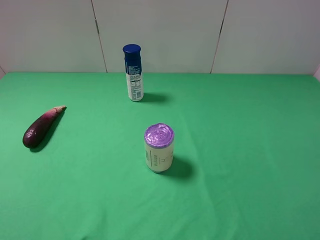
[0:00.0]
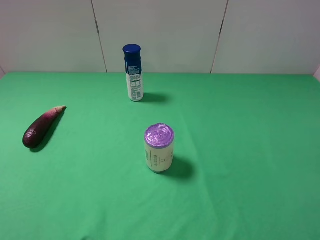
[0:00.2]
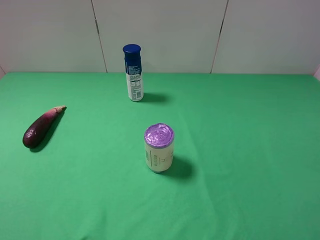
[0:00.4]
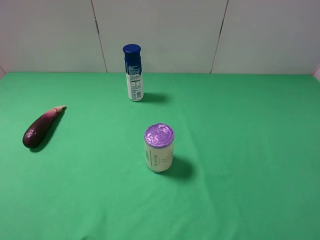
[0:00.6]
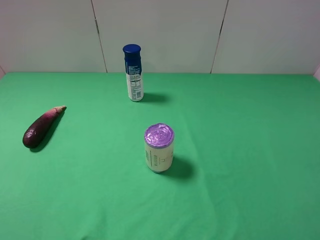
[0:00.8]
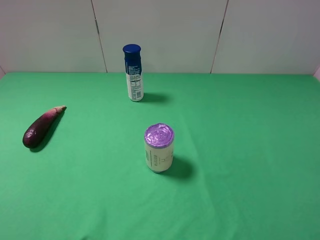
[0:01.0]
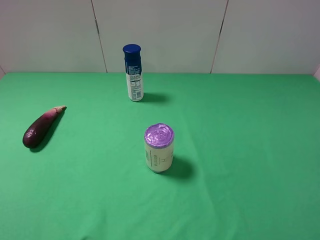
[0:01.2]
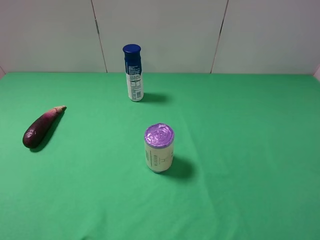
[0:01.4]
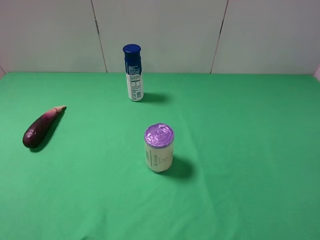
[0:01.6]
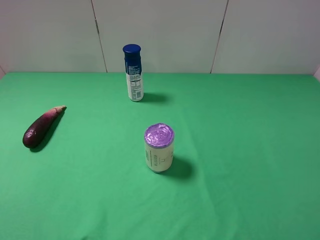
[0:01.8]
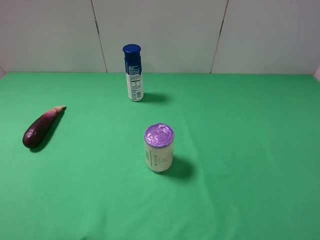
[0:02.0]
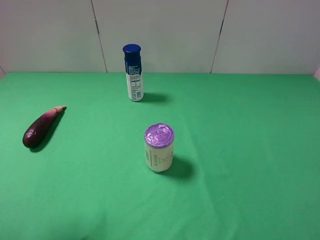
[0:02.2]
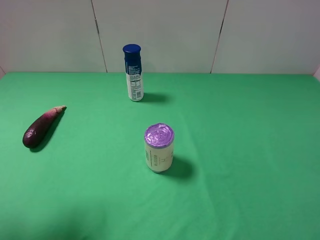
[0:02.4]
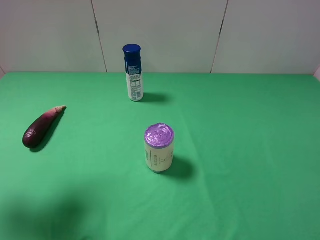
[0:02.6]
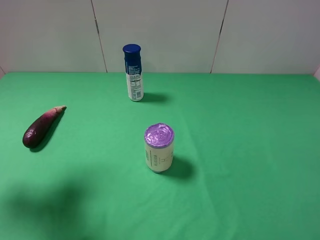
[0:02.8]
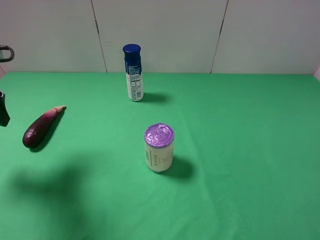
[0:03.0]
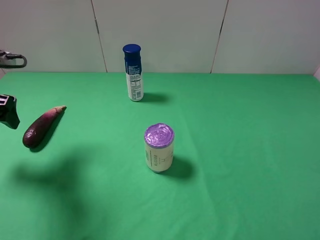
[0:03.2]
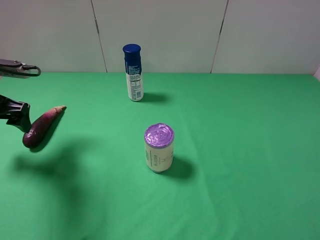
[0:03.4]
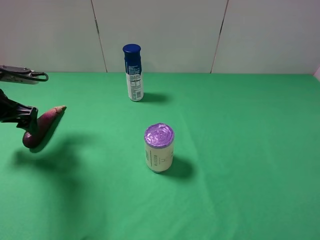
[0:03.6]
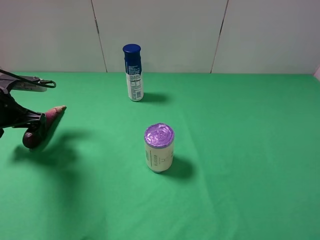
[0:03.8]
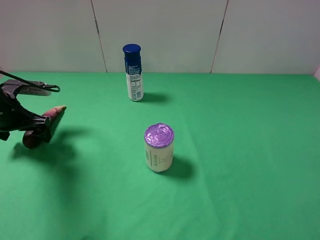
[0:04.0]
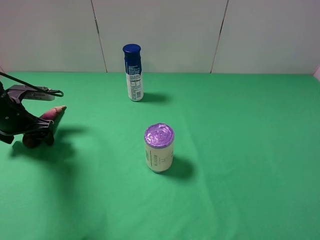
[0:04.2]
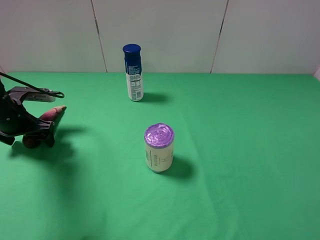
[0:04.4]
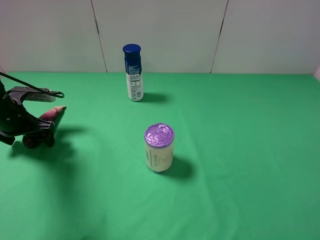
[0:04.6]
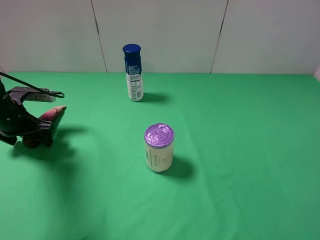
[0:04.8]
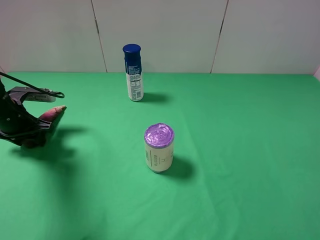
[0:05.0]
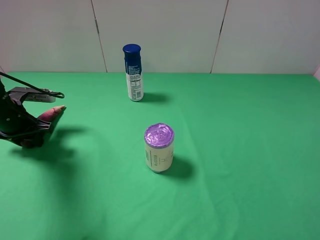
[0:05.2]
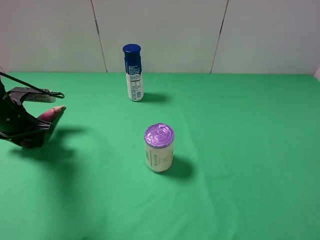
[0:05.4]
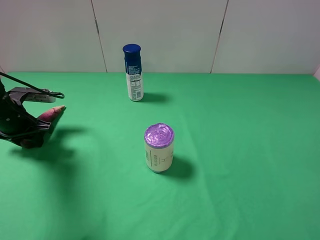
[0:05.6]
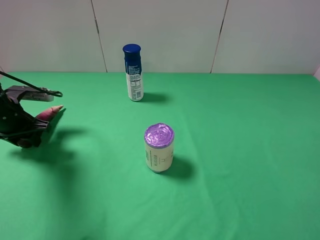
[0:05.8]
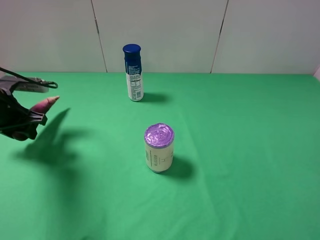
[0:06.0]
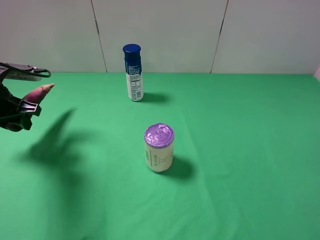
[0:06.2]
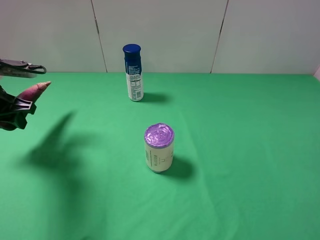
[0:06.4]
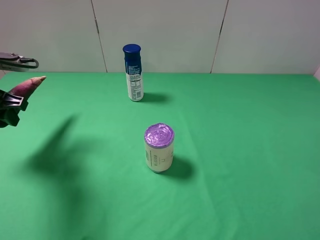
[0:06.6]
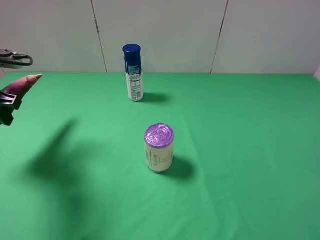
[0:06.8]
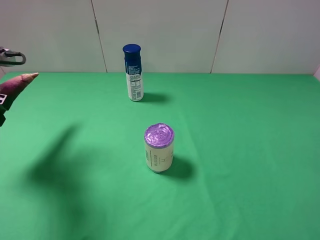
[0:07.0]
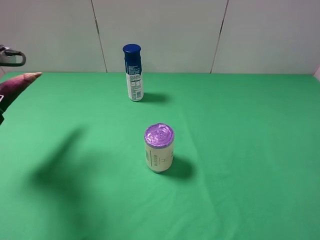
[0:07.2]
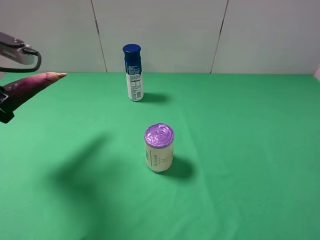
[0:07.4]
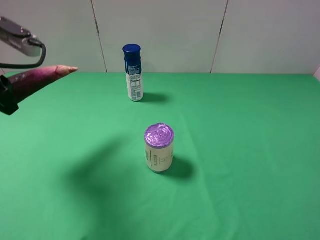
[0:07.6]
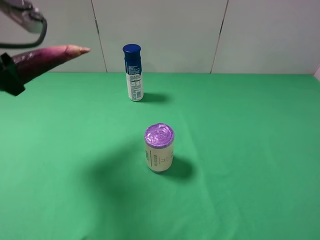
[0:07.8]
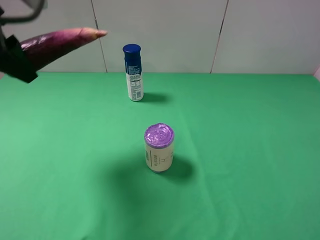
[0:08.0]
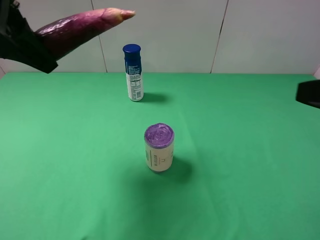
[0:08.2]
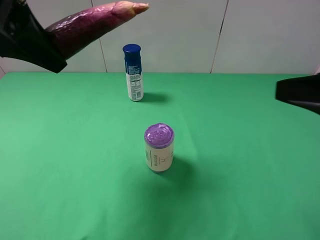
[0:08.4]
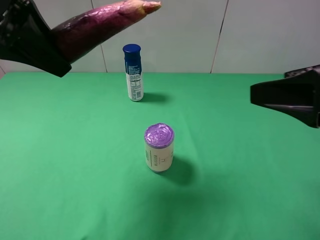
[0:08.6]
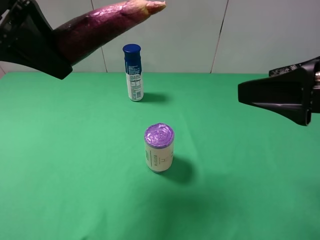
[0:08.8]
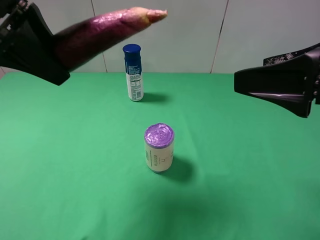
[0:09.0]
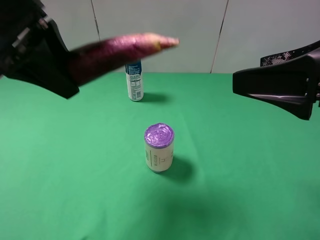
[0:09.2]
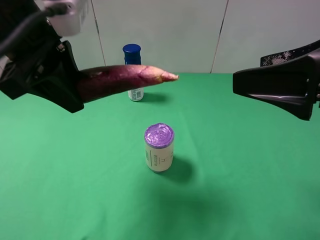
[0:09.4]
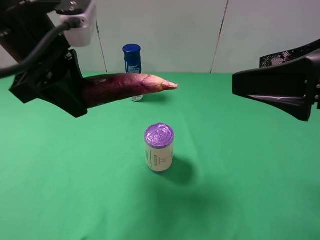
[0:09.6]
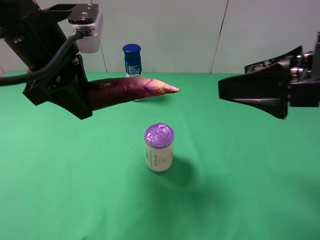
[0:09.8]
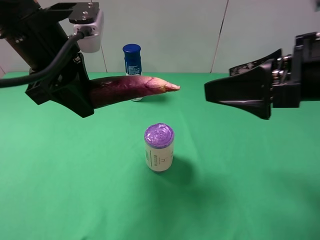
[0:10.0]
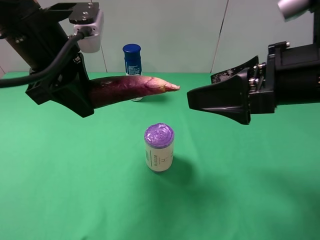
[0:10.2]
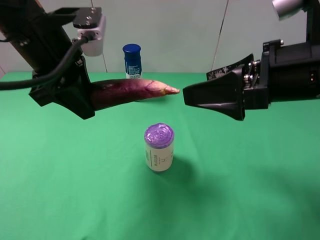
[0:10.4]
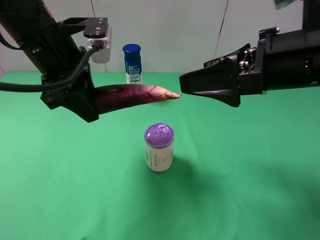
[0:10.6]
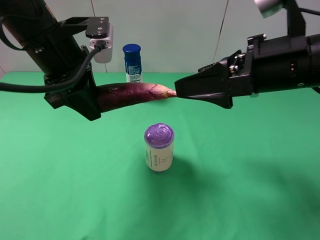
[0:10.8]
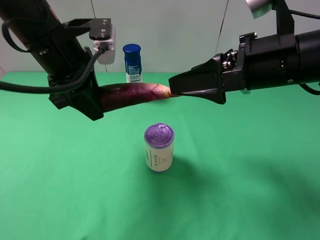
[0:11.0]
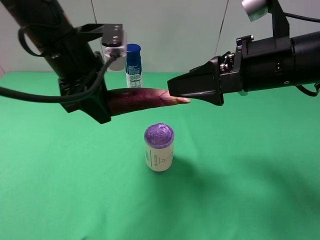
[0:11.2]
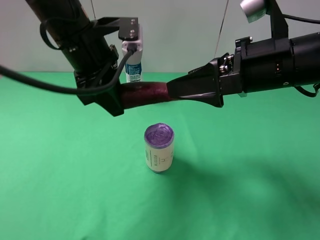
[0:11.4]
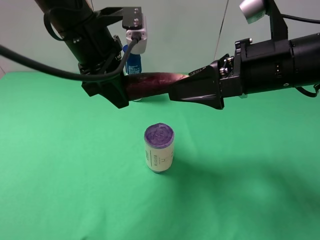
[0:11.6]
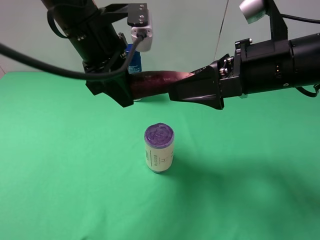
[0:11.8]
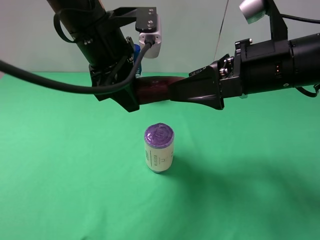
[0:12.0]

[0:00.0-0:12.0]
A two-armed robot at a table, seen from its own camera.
Task of the whole recording: use the left gripper to pick up the item and transfer it from the left gripper to the right gripper.
Step, 0:00.0 to 0:05.2: Use the left gripper to grab the eggplant on the left side of the table.
0:01.6 to 0:03.0: The left gripper is displaced forward by about 25 cm.
0:03.0 to 0:04.4: The left gripper shifts some 15 cm downward and forward.
0:04.4 to 0:06.0: The left gripper closes.
0:06.0 to 0:07.6: The left gripper travels upward by approximately 15 cm.
0:07.6 to 0:09.0: The left gripper is displaced to the right and upward by about 10 cm; the right gripper travels forward and to the left by about 15 cm.
0:09.0 to 0:10.4: The right gripper heads forward, covering approximately 5 cm. Meanwhile the left gripper heads downward, covering approximately 5 cm.
0:10.4 to 0:12.0: The left gripper is displaced to the right by about 5 cm.

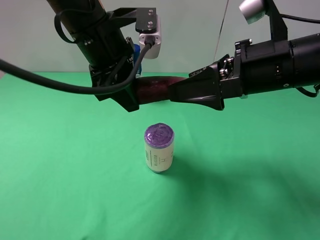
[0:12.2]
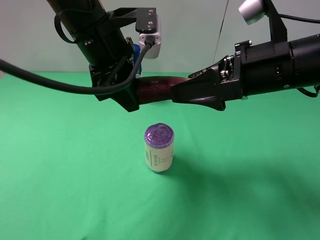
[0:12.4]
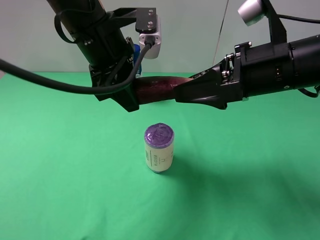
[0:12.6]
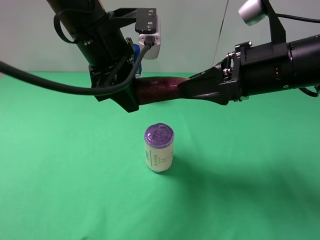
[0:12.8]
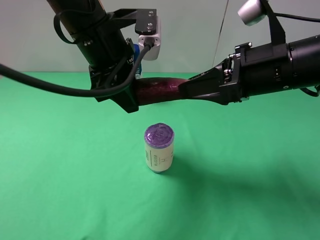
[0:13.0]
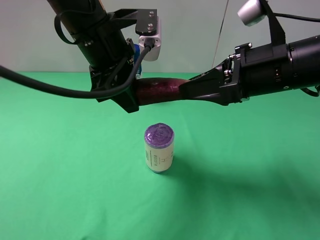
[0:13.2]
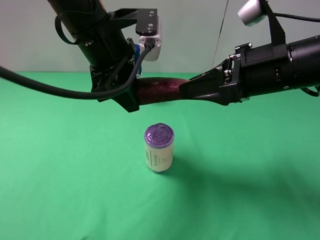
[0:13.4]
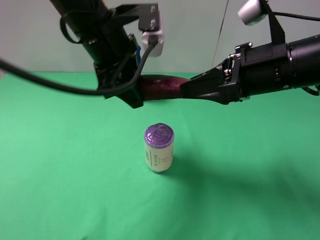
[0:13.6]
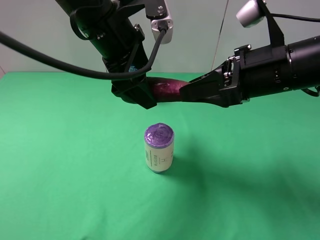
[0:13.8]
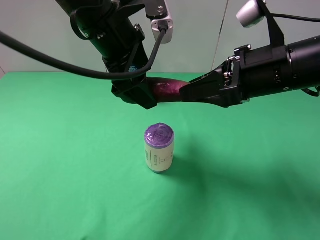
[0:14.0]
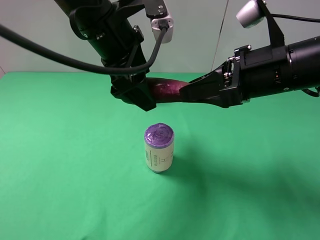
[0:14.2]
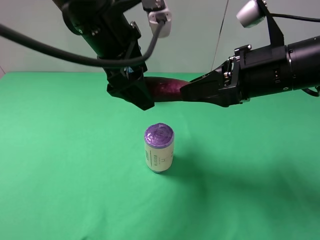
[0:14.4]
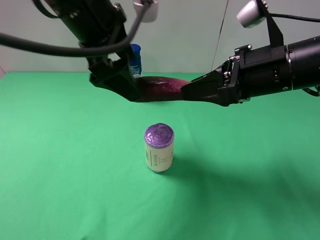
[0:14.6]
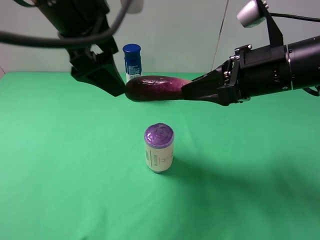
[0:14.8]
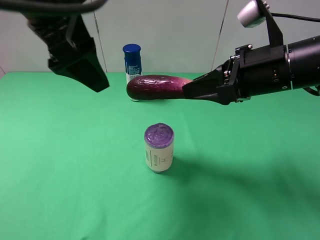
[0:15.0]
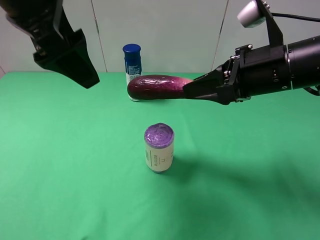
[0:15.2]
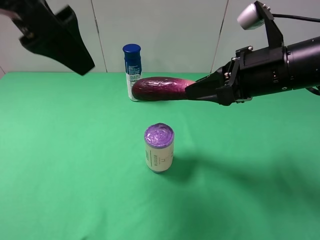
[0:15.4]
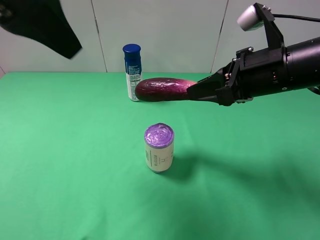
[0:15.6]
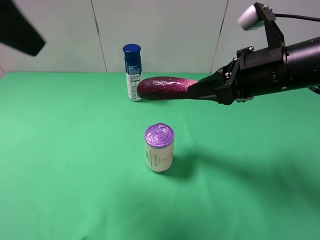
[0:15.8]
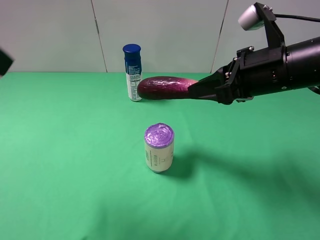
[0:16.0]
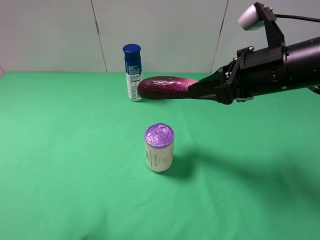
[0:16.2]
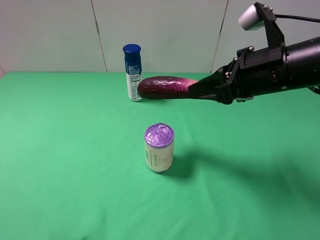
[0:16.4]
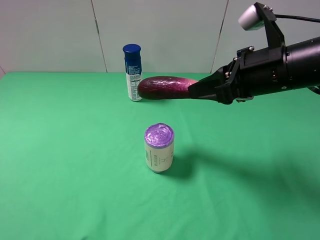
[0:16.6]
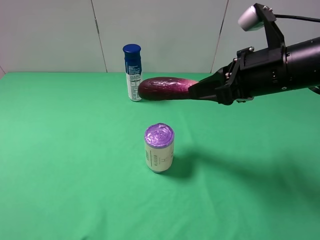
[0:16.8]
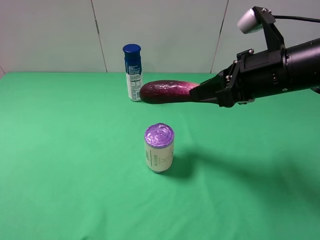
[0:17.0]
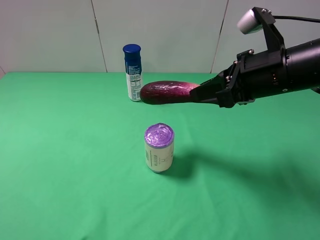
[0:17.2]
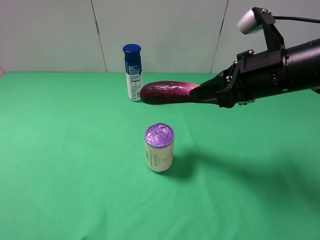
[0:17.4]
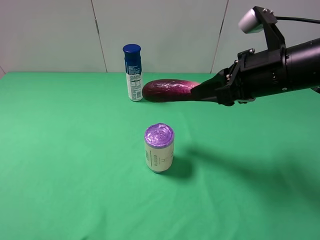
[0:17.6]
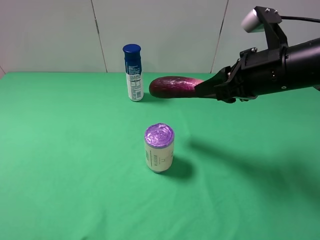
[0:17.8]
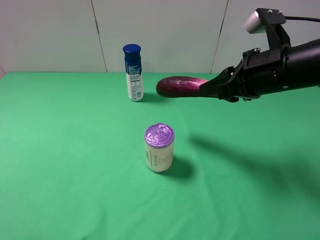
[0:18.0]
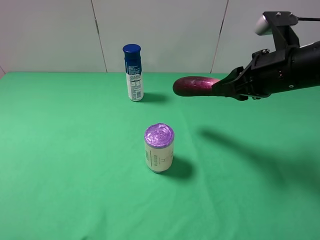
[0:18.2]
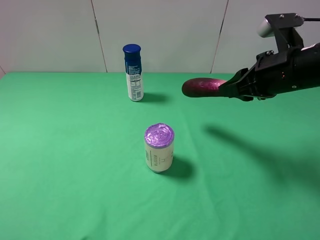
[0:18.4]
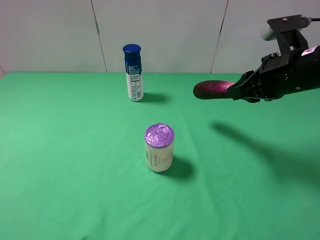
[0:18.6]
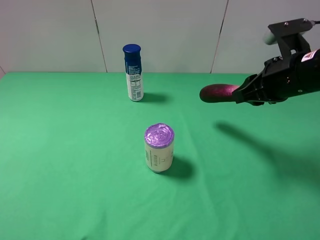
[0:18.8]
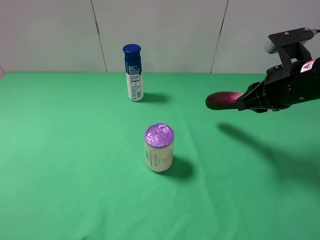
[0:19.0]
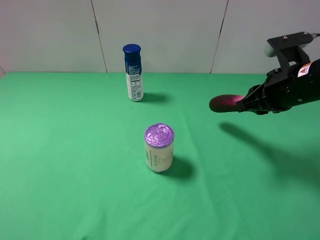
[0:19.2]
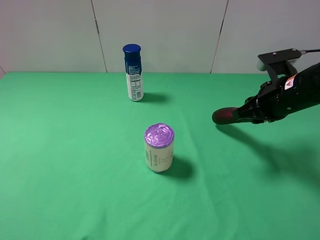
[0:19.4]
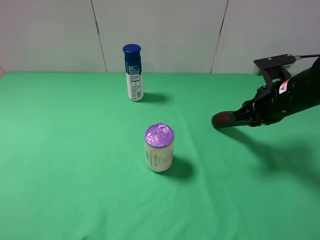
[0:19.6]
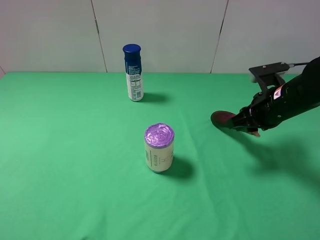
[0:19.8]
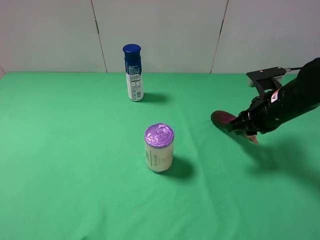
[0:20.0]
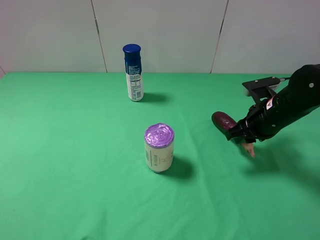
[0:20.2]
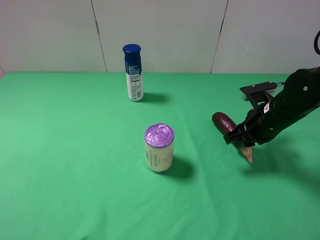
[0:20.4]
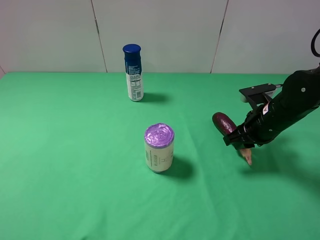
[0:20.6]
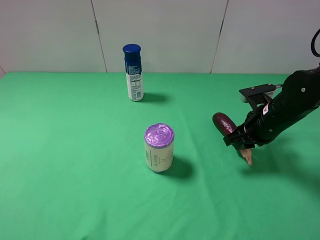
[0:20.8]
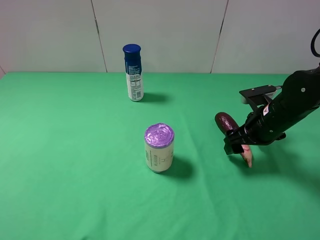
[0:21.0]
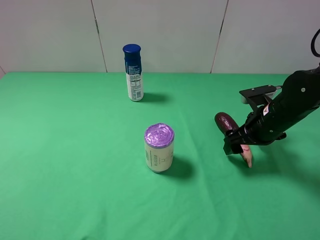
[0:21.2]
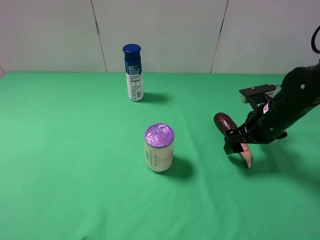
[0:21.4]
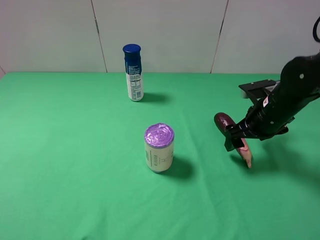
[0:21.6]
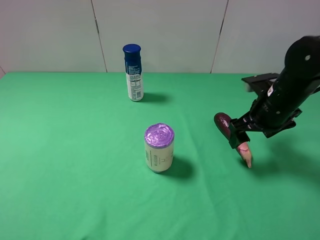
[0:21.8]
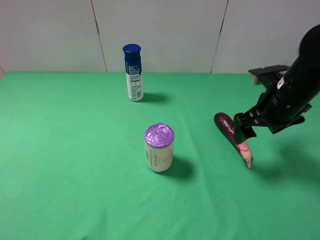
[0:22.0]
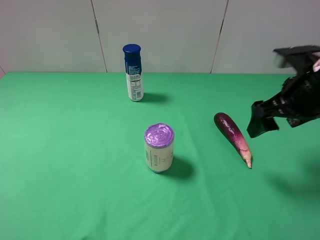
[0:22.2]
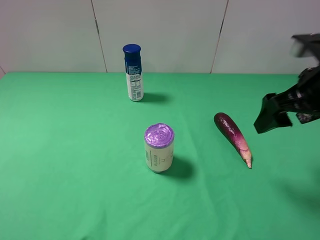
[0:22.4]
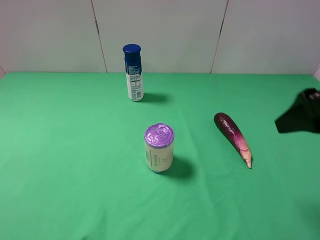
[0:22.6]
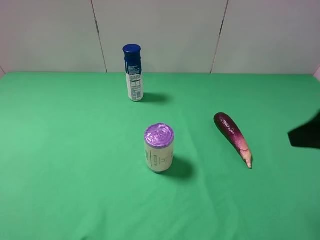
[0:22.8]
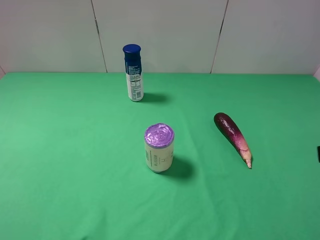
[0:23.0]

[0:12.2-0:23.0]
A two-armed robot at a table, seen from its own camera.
Task of the whole recording: use the left gripper to pick up the item and transfer it from the left gripper to the right gripper.
Step, 0:12.2 to 0:14.4: Pass the eggplant to the right gripper.
Step, 0:14.6 to 0:21.6: The right gripper places eggplant on the right side of the table.
0:12.2 to 0:13.8: The left gripper opens up, while the right gripper closes.
0:13.8 to 0:15.2: The left gripper goes roughly 10 cm upward, to the left and backward.
0:15.2 to 0:16.8: The left gripper moves backward and to the left, roughly 30 cm.
0:18.4 to 0:20.0: The right gripper travels downward by roughly 10 cm.
0:20.0 to 0:21.4: The right gripper opens.
0:21.4 to 0:23.0: The right gripper shifts some 25 cm backward and upward.
